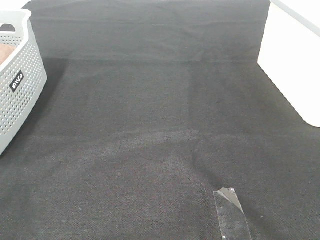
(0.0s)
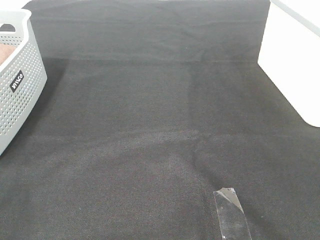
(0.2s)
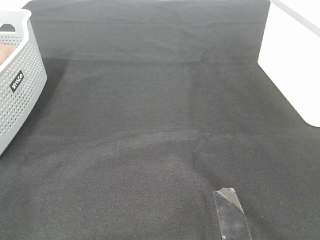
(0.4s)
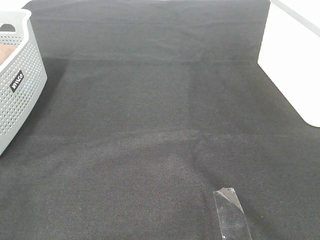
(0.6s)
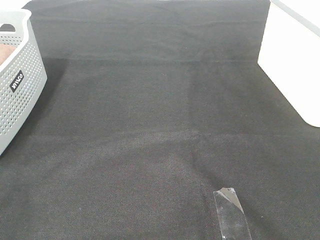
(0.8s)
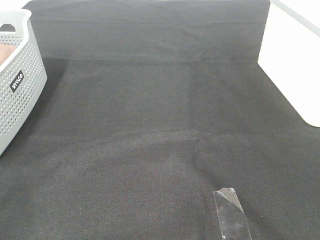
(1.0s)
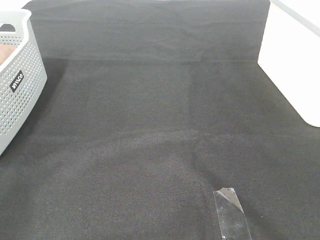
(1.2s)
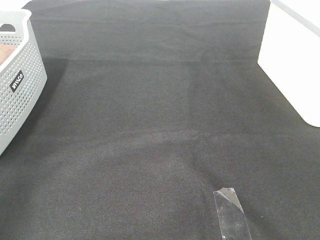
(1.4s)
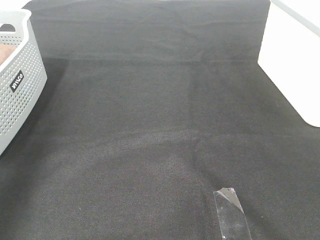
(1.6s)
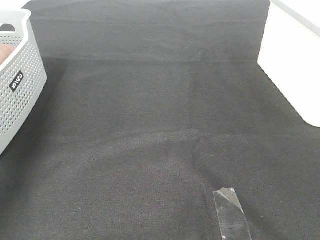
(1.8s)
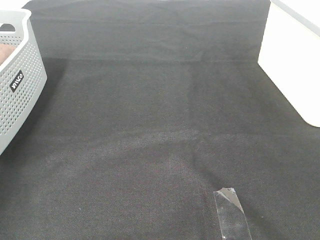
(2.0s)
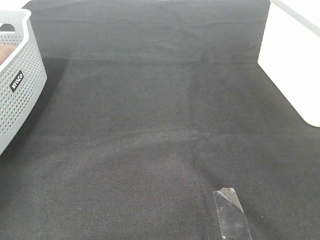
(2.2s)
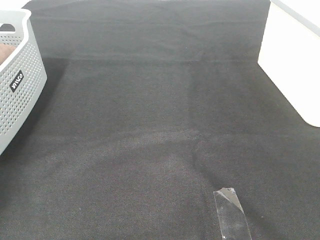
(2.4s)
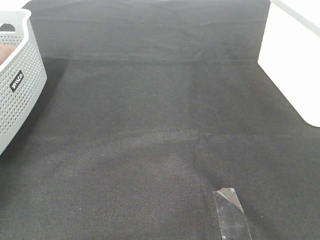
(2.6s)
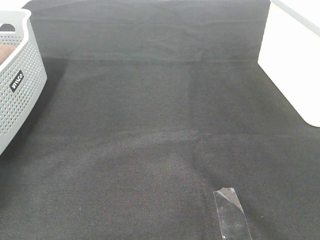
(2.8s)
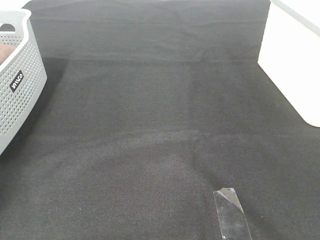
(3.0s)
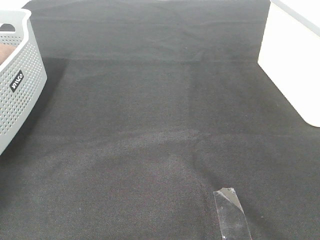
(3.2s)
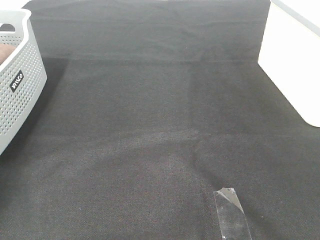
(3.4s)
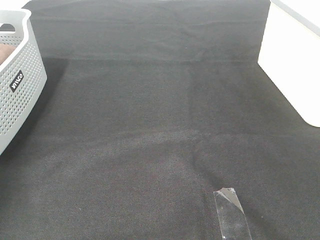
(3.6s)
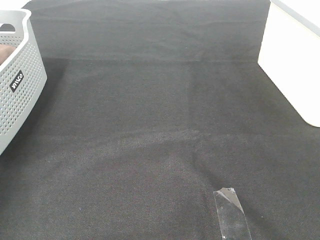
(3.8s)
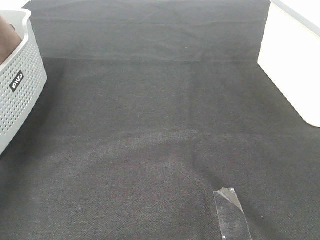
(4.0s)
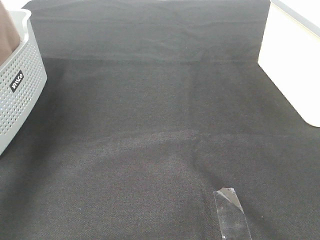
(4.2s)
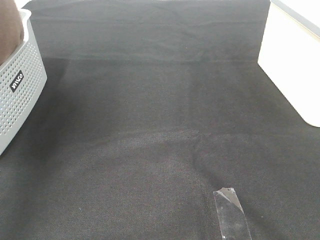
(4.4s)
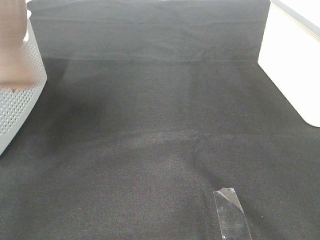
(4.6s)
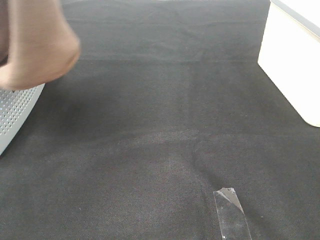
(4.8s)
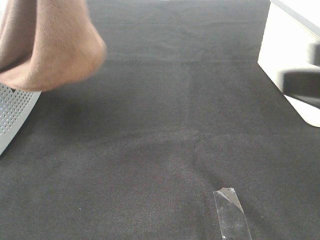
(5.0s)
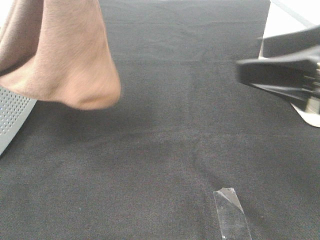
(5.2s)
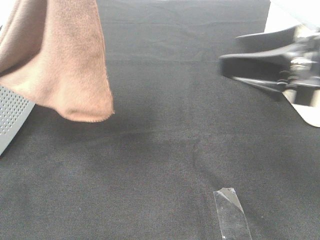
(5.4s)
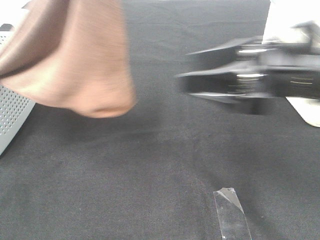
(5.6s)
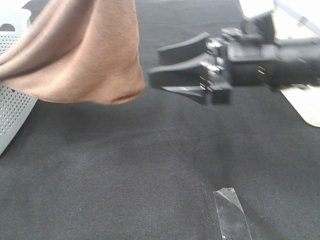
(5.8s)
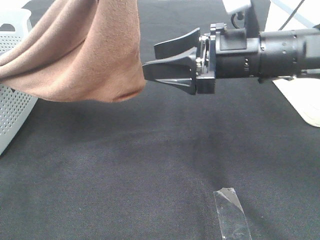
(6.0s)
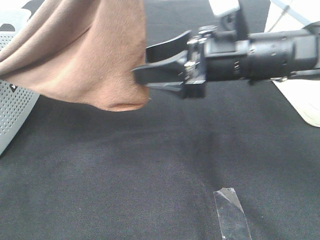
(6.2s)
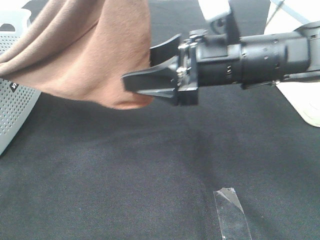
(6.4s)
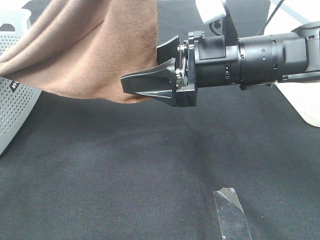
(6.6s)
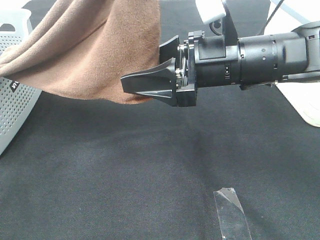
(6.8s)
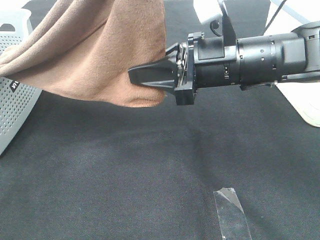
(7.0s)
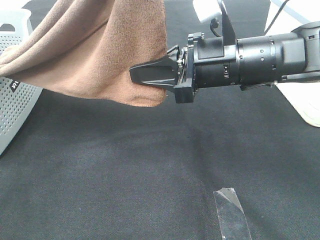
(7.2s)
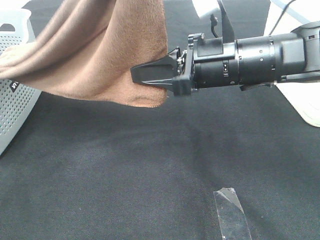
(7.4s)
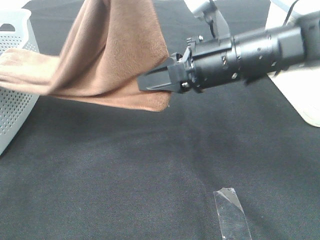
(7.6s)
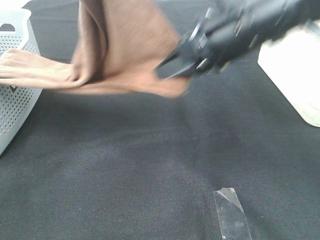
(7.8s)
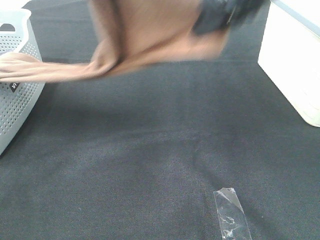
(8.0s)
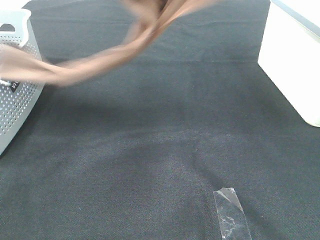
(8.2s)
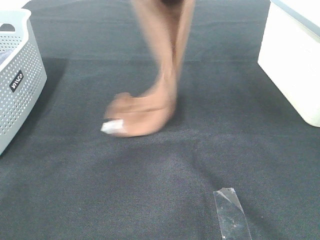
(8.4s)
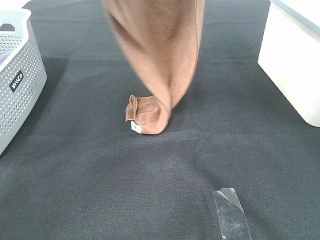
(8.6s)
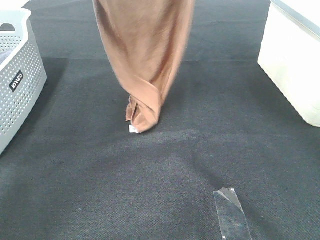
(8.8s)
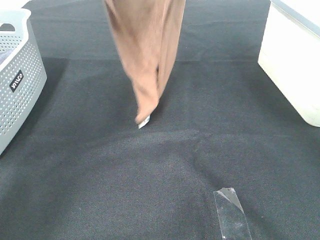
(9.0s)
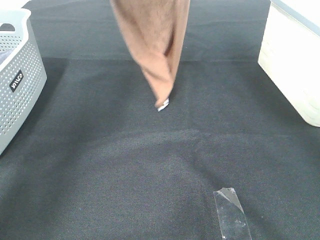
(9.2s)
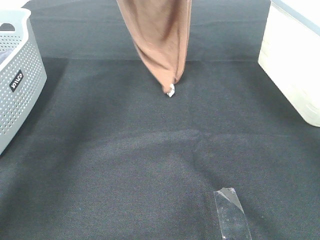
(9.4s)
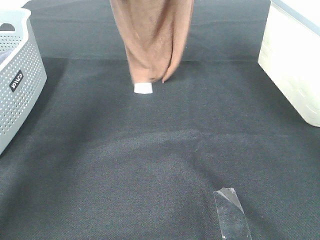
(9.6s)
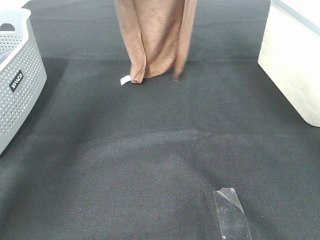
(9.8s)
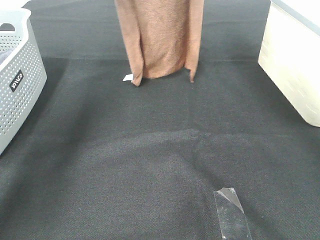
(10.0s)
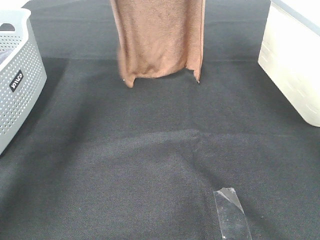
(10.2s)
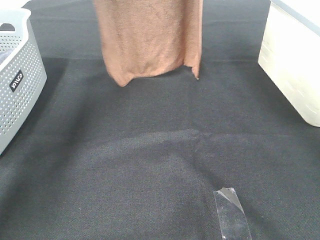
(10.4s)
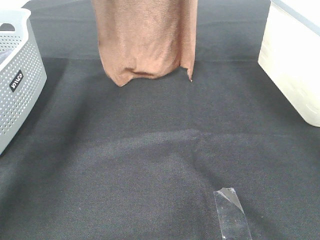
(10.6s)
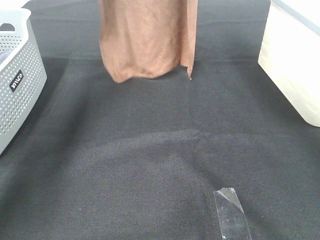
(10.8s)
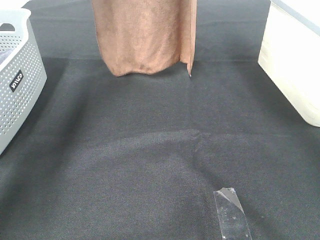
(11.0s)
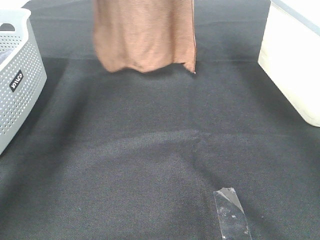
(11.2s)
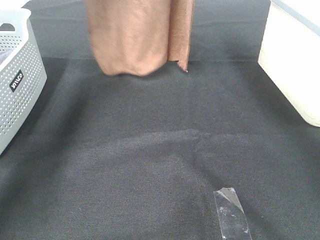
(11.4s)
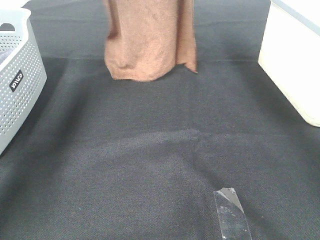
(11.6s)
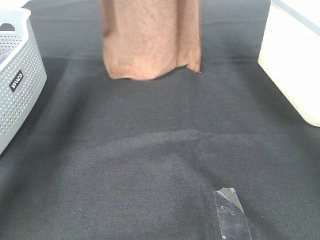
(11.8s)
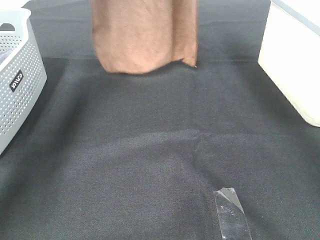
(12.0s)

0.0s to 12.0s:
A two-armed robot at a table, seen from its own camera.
Task of the whole recording: Remove the towel and place it.
Step, 5.2s to 8.2s: Right hand: grab a corner of the brown towel and straighten it.
0.0s to 1.6s: The left gripper travels forward and upward by roughly 30 cm.
1.6s to 3.0s: The left gripper is displaced downward and forward by roughly 30 cm, and closes its fingers.
3.0s to 4.4s: The left gripper shifts some 40 cm upward, to the right and backward.
4.4s to 6.0s: The left gripper shifts some 15 cm to the right; the right gripper moves forward and to the left, about 30 cm.
6.0s to 7.6s: The right gripper closes up.
7.6s to 9.0s: The left gripper heads forward, covering approximately 20 cm. The right gripper moves upward and forward, about 30 cm.
9.0s to 10.4s: The left gripper moves forward, approximately 5 cm.
10.4s to 12.0s: There are only small adjustments of the grippers.

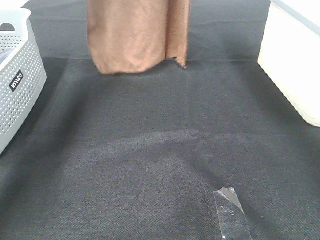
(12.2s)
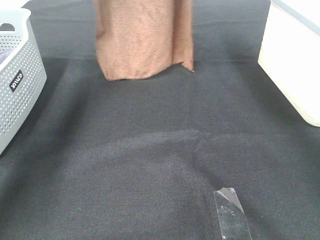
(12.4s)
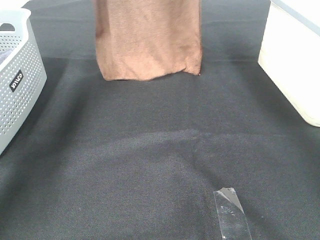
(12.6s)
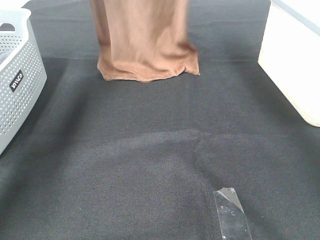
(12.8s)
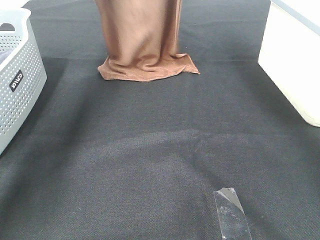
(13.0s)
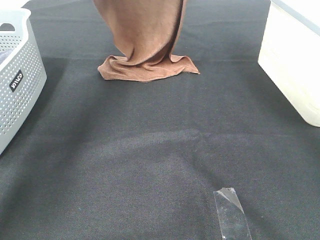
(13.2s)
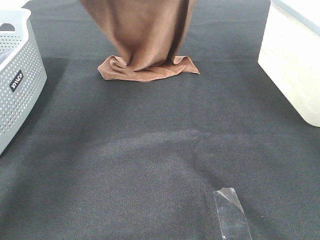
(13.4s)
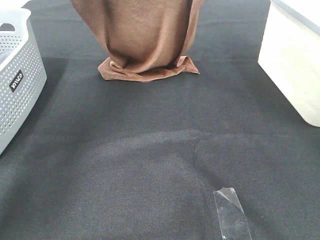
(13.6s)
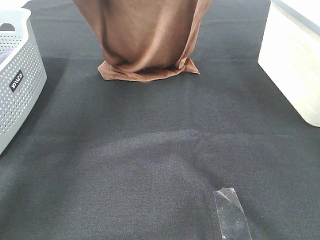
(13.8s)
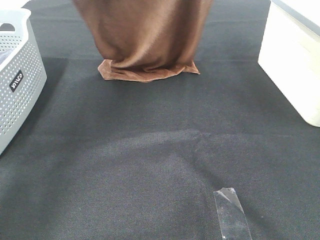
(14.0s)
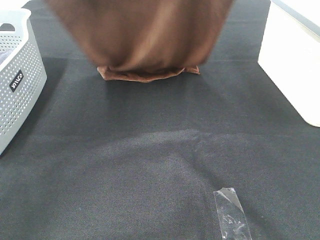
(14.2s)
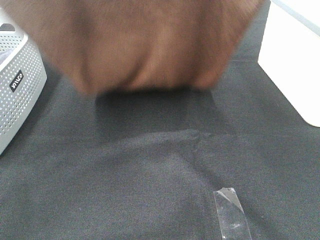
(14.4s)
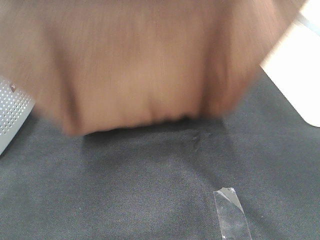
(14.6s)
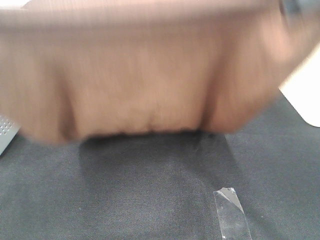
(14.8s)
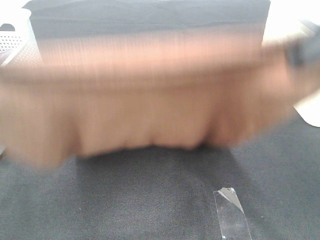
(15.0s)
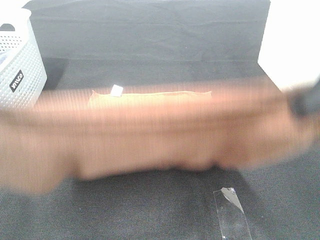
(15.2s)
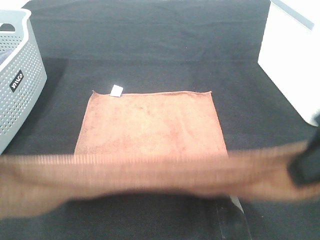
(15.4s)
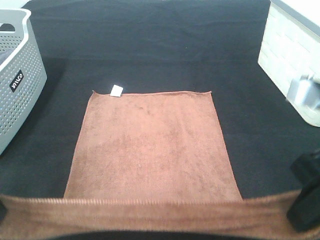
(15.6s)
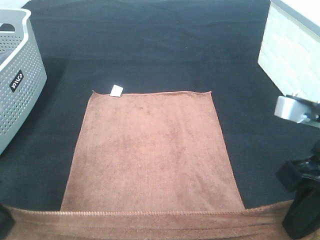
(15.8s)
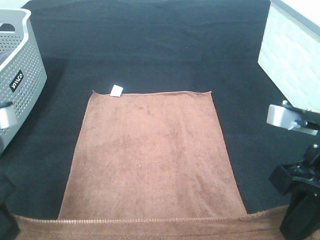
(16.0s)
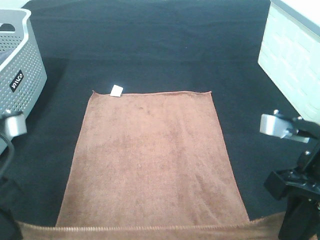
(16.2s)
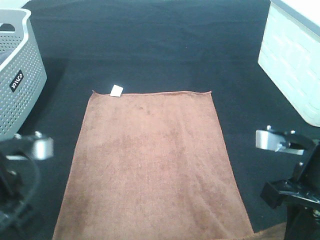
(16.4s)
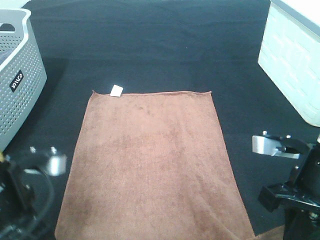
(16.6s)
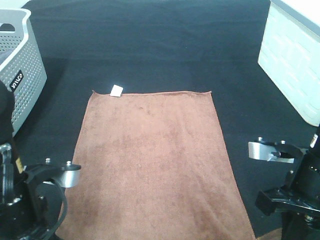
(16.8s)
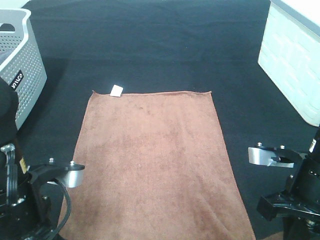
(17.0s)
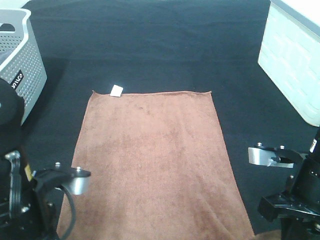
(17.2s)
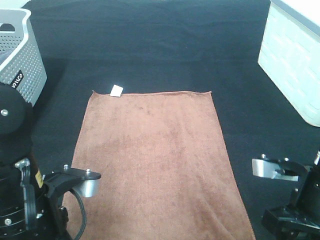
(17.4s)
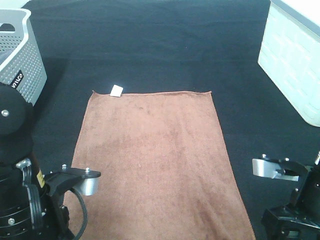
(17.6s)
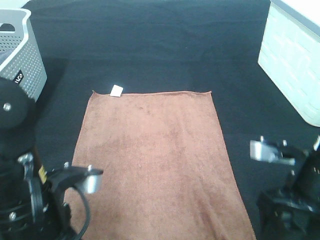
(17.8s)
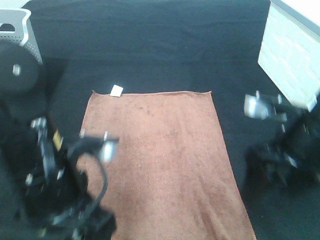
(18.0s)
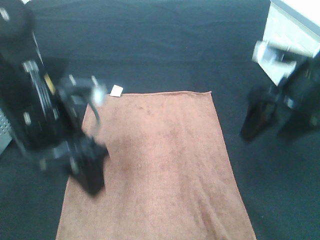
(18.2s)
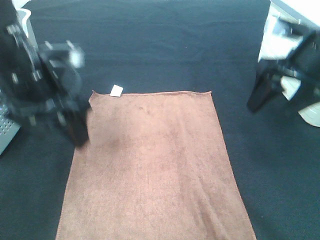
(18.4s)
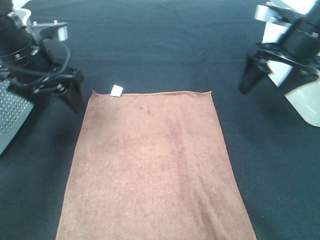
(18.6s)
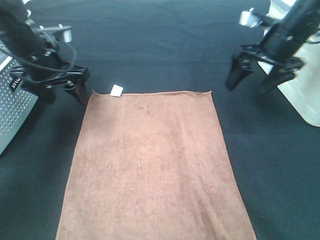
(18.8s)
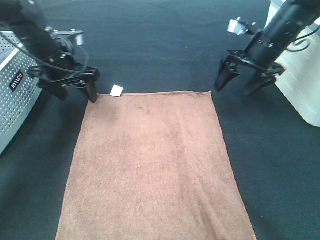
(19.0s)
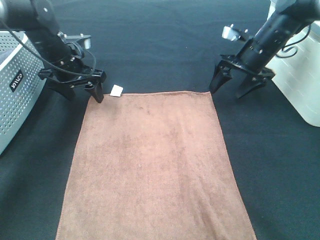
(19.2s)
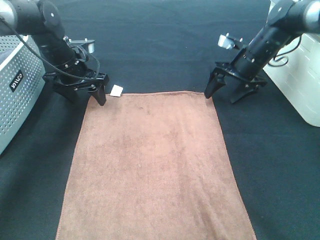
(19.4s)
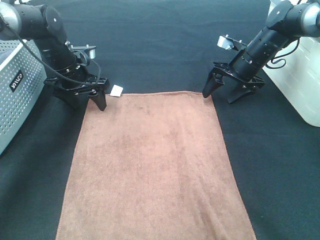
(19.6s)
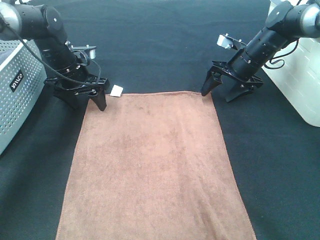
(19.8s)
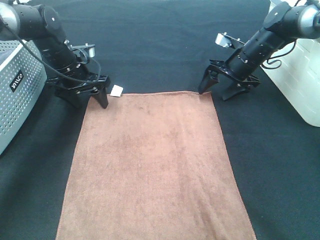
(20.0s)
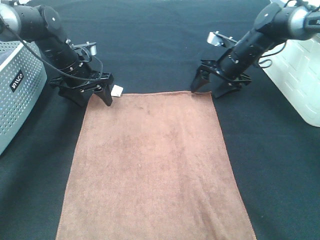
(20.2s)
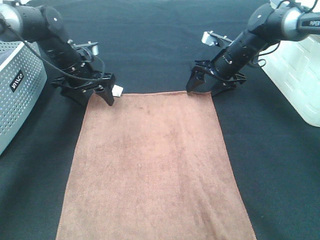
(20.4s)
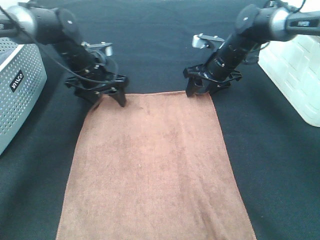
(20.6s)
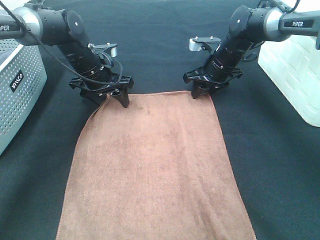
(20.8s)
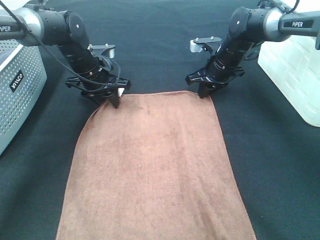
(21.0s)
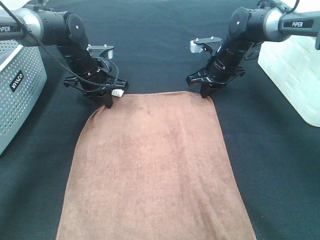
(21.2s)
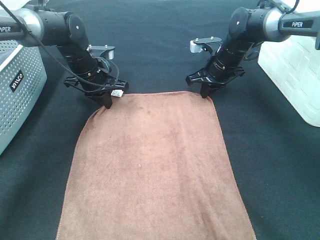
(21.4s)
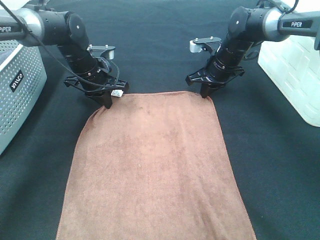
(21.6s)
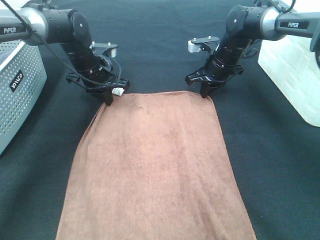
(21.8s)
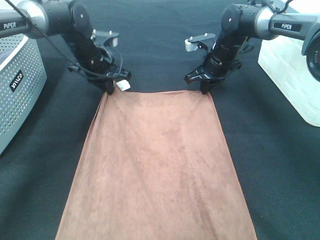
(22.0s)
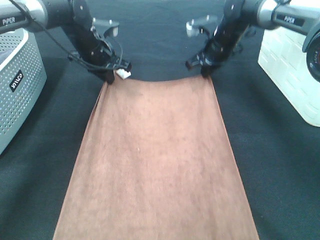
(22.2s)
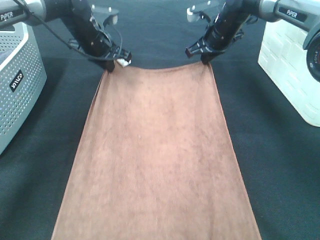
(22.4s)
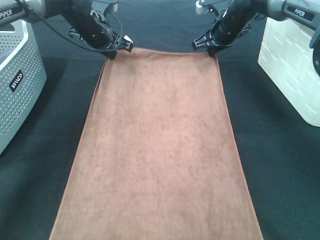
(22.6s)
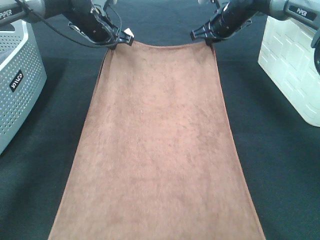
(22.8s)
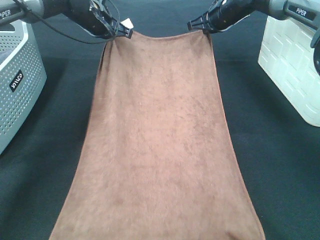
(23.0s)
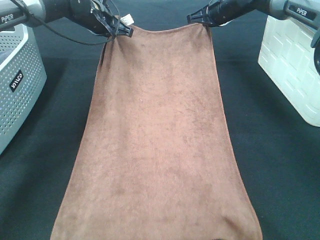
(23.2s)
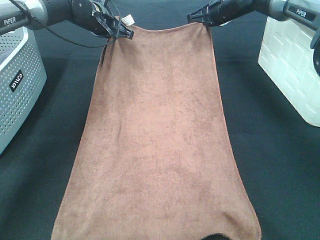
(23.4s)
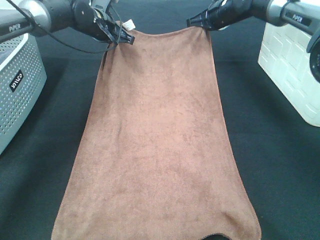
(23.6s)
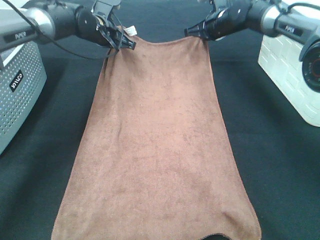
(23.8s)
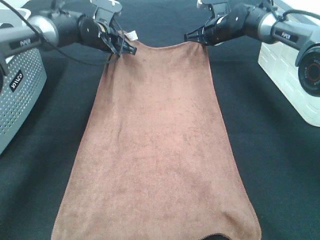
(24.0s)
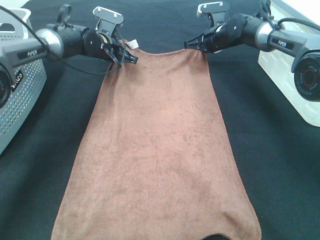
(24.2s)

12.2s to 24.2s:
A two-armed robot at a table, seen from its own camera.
Task of the whole recording: Remove the towel and place it.
Step, 14.2s to 20.4s: Left hand:adjust the brown towel.
Step, 14.2s to 20.4s: Right hand:adjust the brown towel.
12.2s to 13.8s: Both grippers travel together backward, some 10 cm.
13.8s to 15.2s: Both grippers move backward, some 30 cm.
15.2s to 16.6s: Both grippers move downward, some 15 cm.
16.6s to 18.2s: Both grippers move forward and upward, approximately 10 cm. The right gripper opens its fingers; the left gripper opens.
18.2s to 19.8s: The grippers both shift forward and downward by about 25 cm.
19.8s to 21.2s: The left gripper closes up. The right gripper heads to the left, covering approximately 5 cm, and closes.
21.2s to 22.6s: Both grippers travel together upward and forward, some 10 cm.
22.6s to 24.2s: Both grippers move downward, roughly 5 cm.
